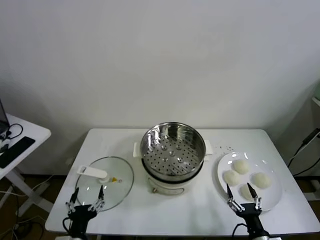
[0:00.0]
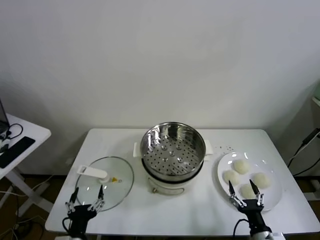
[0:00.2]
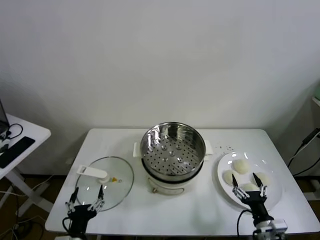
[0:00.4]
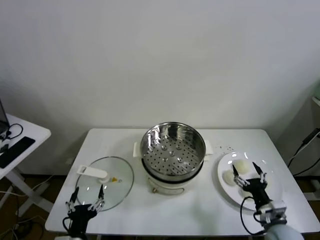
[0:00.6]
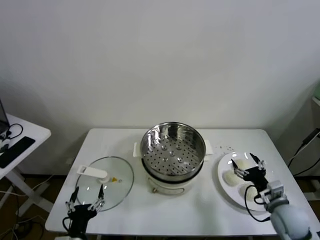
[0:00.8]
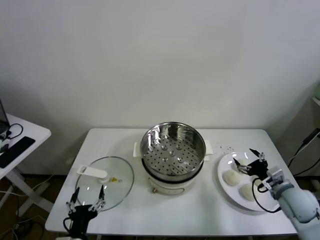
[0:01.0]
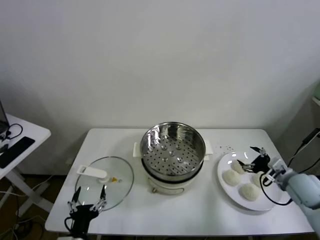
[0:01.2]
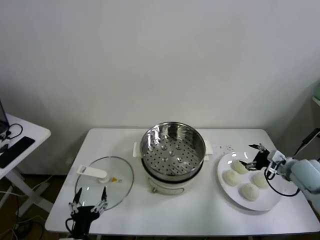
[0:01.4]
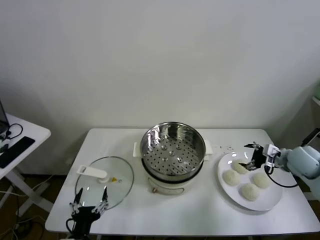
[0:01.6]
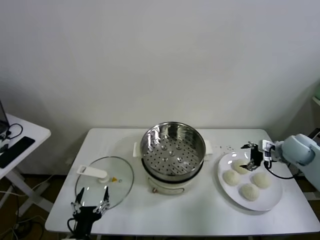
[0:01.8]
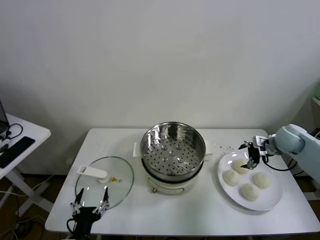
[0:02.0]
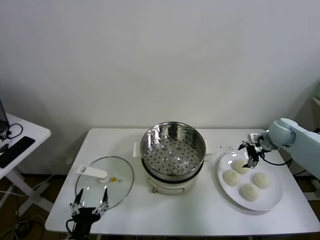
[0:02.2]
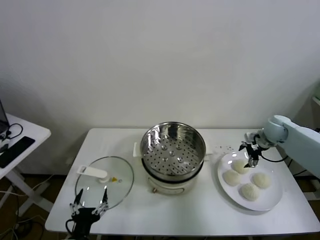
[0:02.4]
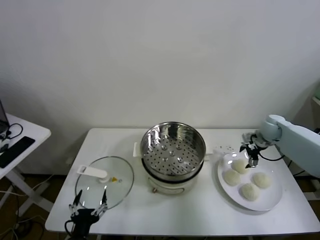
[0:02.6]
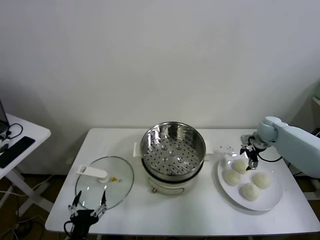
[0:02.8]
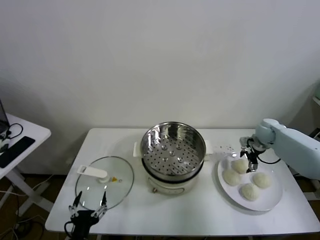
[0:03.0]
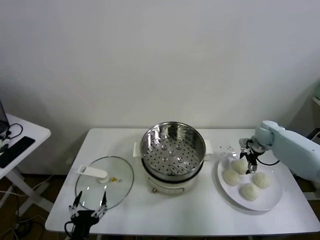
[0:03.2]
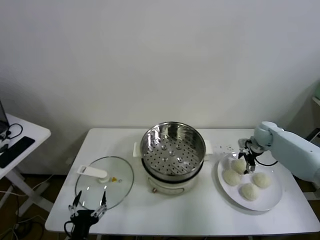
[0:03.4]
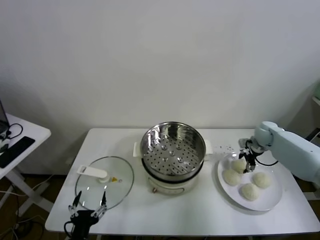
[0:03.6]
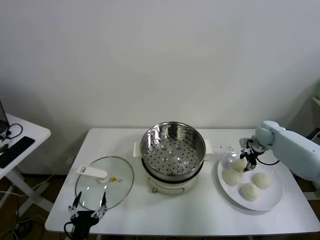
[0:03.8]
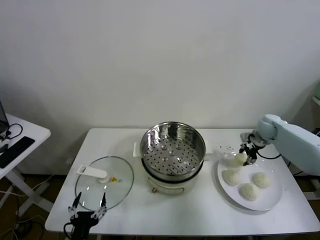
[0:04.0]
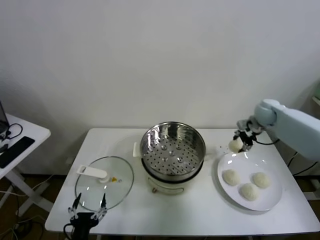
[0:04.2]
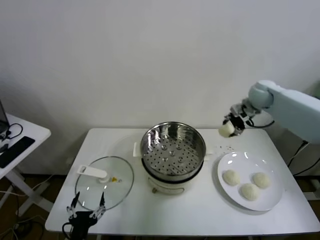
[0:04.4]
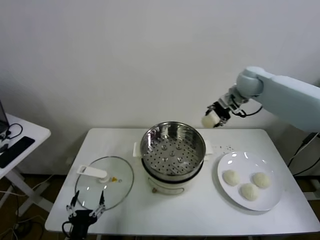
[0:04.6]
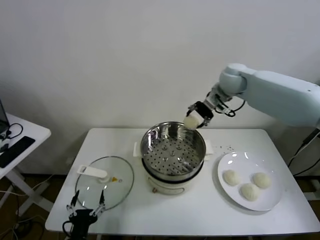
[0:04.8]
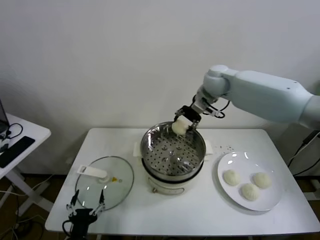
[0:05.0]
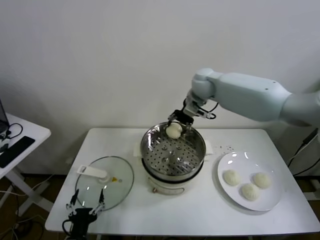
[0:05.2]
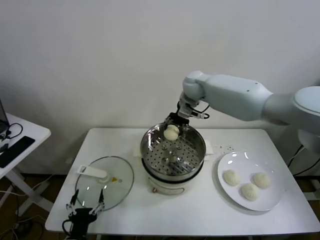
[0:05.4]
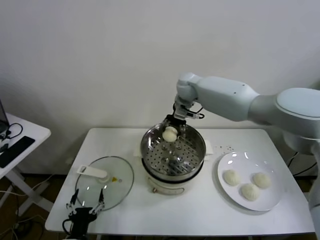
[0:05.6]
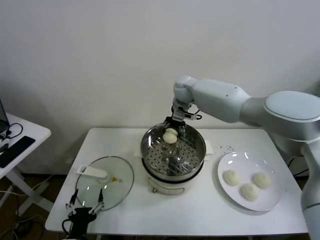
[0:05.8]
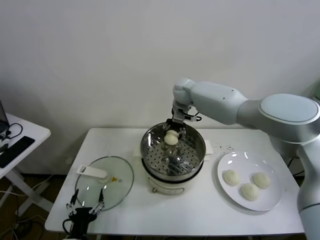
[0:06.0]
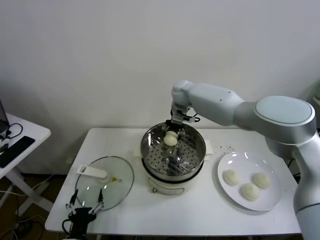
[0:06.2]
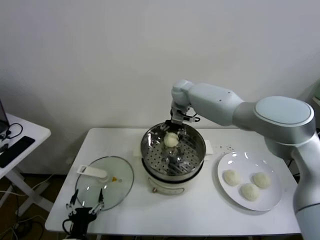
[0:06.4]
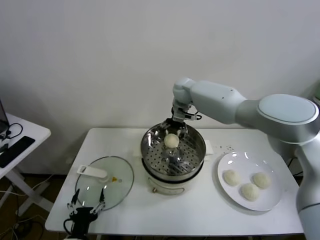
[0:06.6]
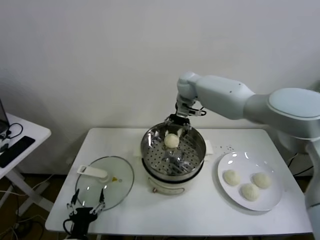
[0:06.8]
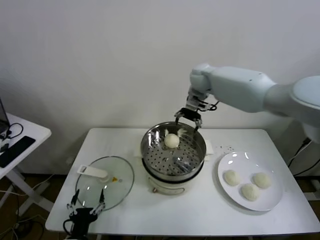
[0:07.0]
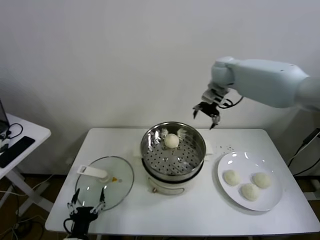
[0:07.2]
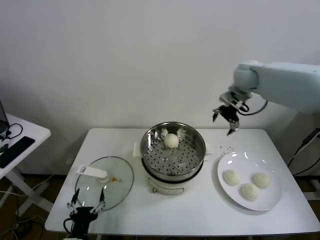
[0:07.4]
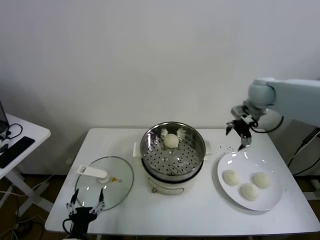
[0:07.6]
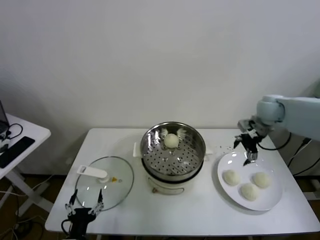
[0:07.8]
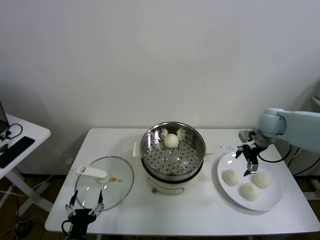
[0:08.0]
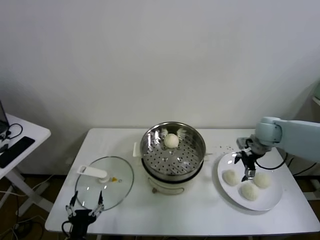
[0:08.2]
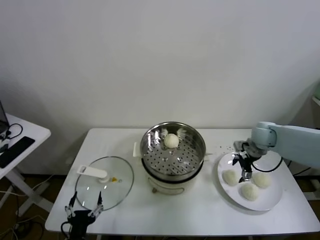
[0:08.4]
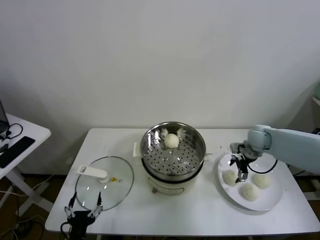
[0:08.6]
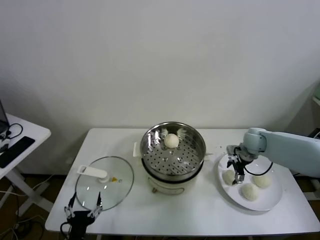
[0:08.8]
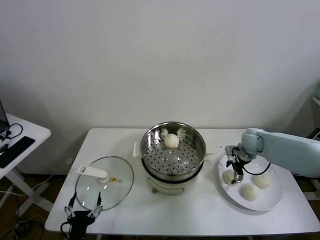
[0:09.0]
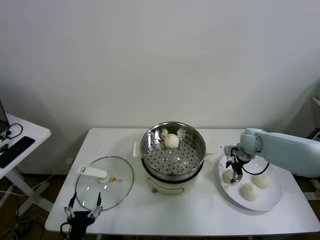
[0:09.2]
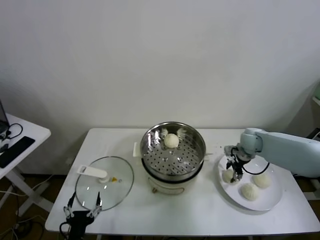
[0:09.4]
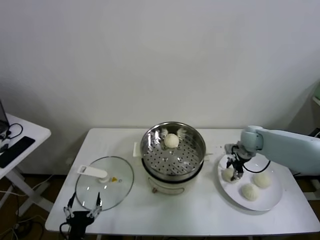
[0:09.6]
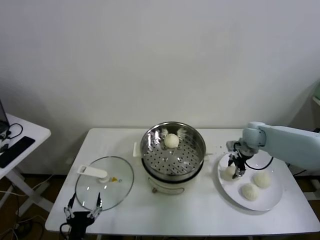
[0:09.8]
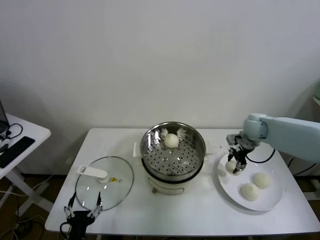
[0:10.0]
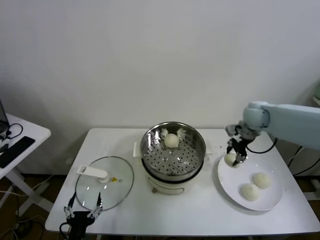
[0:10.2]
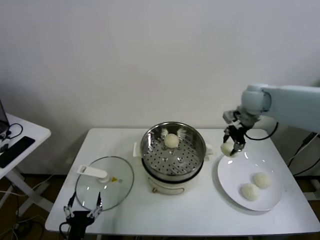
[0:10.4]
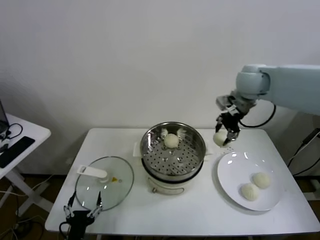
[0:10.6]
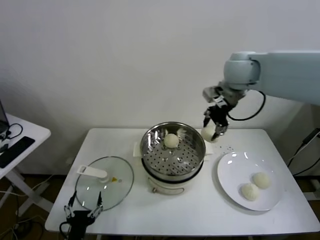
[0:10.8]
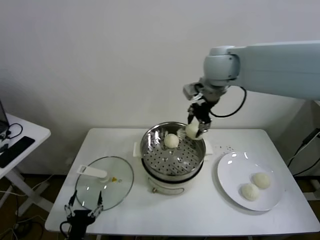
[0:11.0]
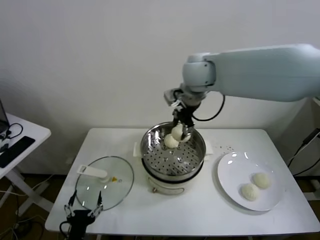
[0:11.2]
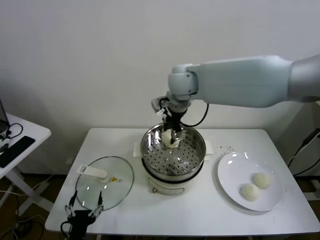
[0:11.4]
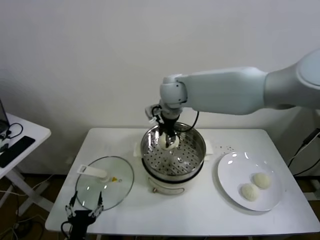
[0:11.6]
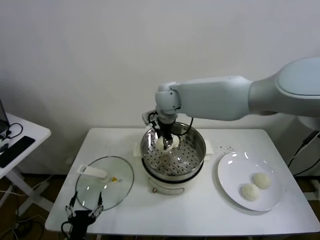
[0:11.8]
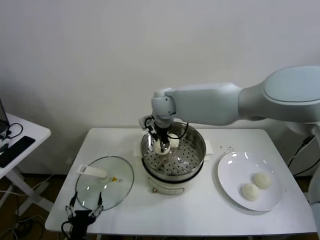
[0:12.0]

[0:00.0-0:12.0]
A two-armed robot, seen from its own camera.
Task of the whole recording: take steamed baozi put them in steamer.
Step, 0:00.0 to 0:03.4: Grasp the baozi in the plate with right gripper.
Step, 0:03.8 to 0:06.4: Place the baozi on the steamer with right gripper.
Step, 0:06.6 to 0:09.4: Grasp the baozi in the plate with right gripper.
0:01.6 to 0:03.0: The right gripper shifts about 15 cm forward.
0:03.0 to 0:04.4: The right gripper is displaced upward and to the left by roughly 20 cm, and closes up.
0:04.4 to 0:06.0: The right gripper travels to the left by about 25 cm.
0:06.0 to 0:07.6: The right gripper travels to the right by roughly 25 cm, and opens.
0:07.6 to 0:09.0: The right gripper heads downward, covering roughly 20 cm.
0:09.0 to 0:10.4: The right gripper is displaced upward by some 20 cm, and closes.
0:10.4 to 0:12.0: The right gripper travels to the left by some 30 cm.

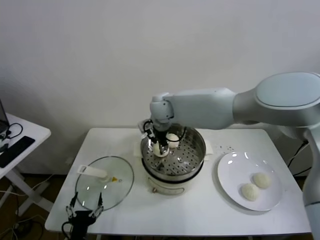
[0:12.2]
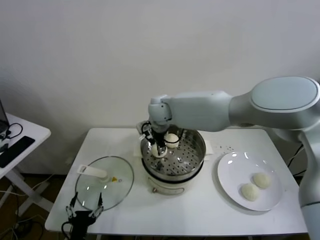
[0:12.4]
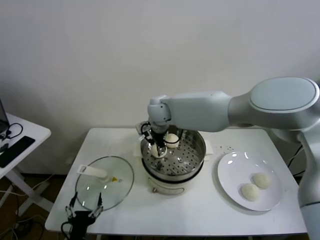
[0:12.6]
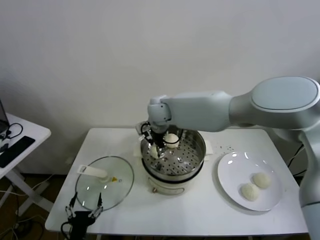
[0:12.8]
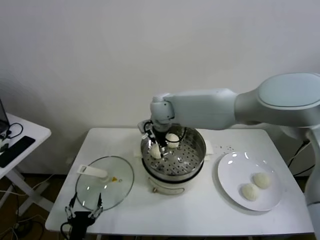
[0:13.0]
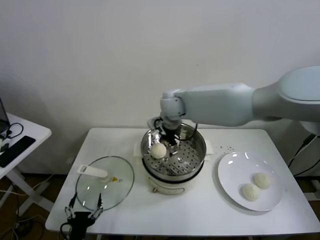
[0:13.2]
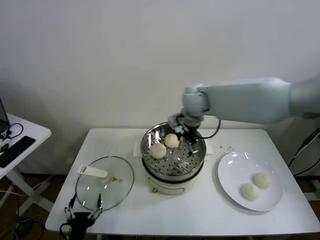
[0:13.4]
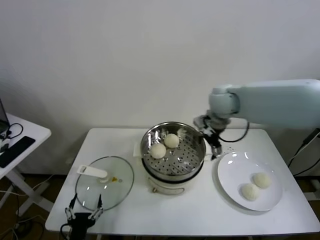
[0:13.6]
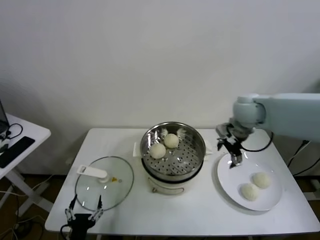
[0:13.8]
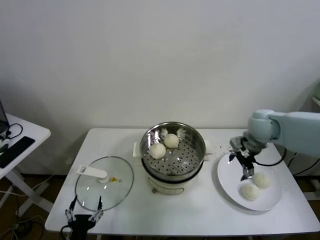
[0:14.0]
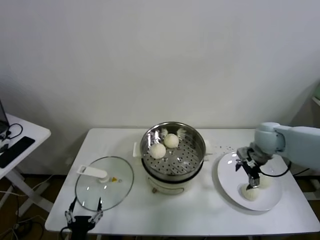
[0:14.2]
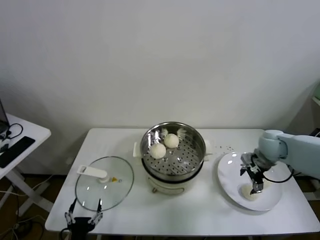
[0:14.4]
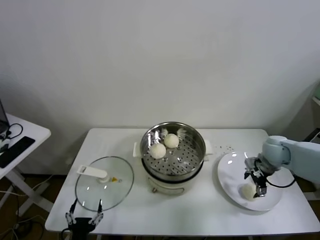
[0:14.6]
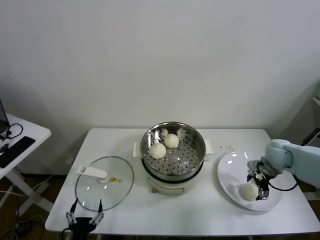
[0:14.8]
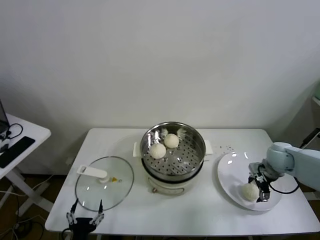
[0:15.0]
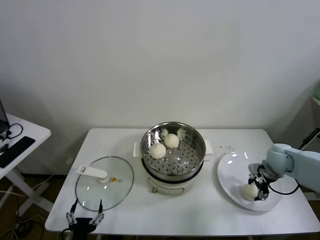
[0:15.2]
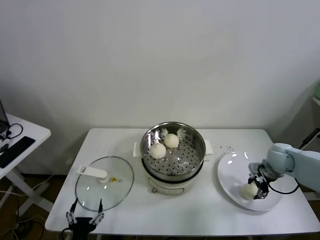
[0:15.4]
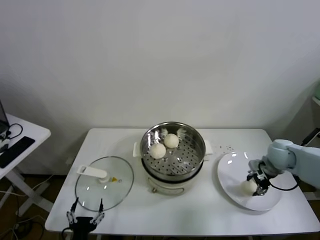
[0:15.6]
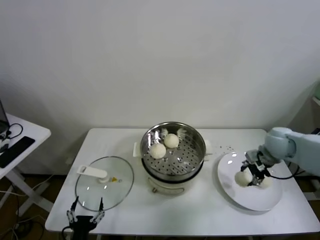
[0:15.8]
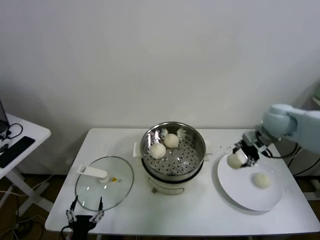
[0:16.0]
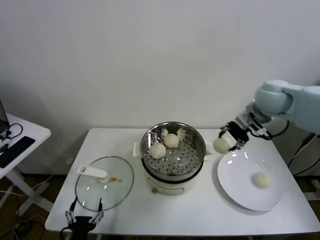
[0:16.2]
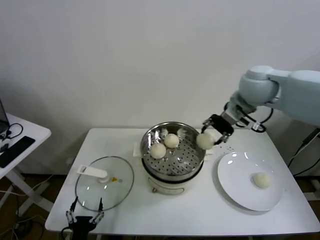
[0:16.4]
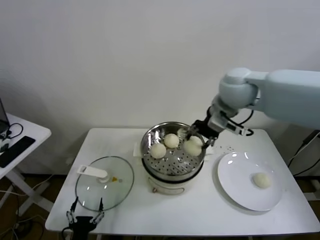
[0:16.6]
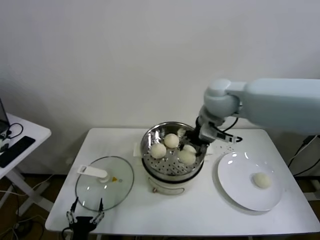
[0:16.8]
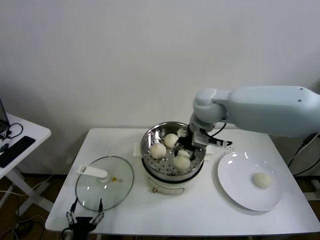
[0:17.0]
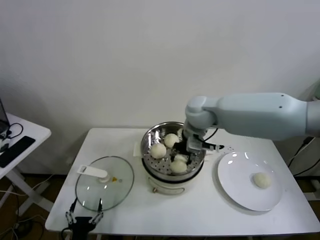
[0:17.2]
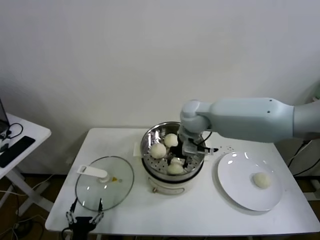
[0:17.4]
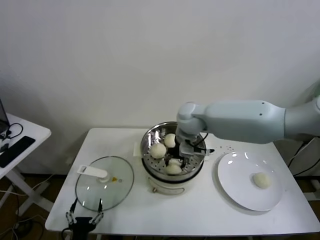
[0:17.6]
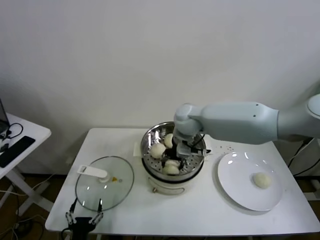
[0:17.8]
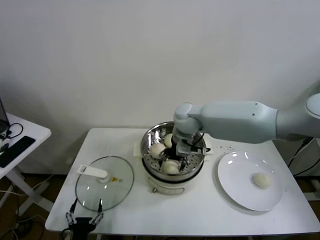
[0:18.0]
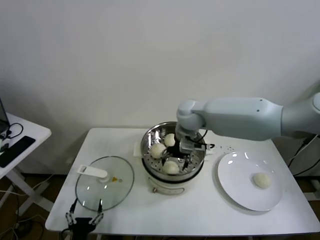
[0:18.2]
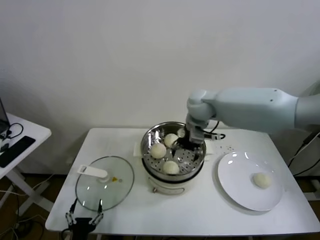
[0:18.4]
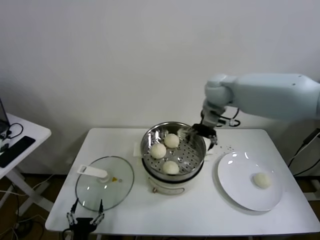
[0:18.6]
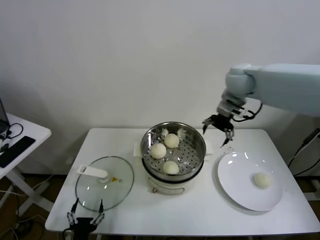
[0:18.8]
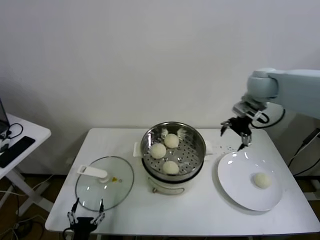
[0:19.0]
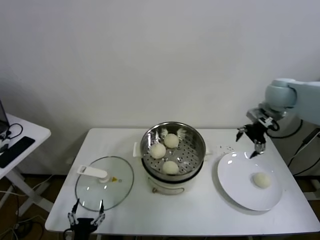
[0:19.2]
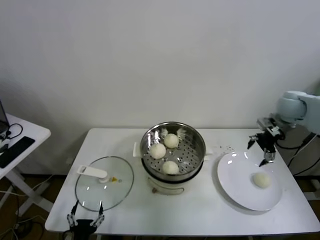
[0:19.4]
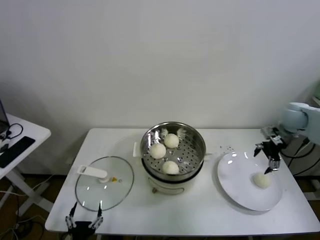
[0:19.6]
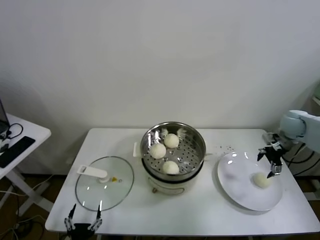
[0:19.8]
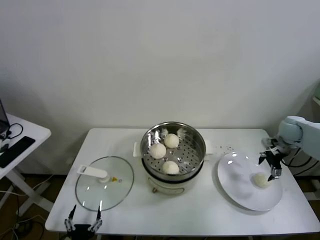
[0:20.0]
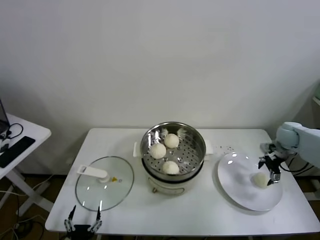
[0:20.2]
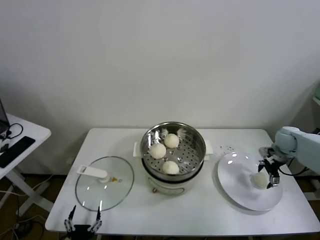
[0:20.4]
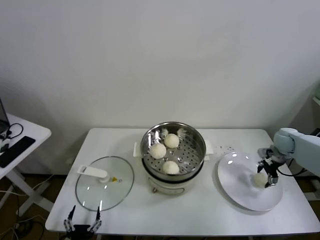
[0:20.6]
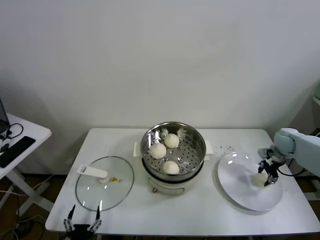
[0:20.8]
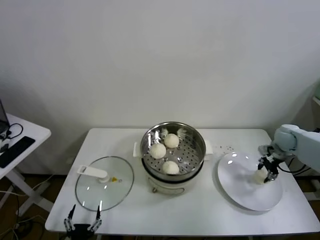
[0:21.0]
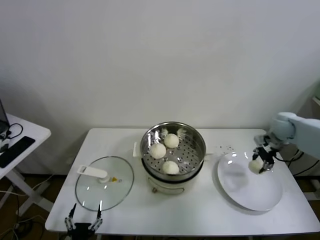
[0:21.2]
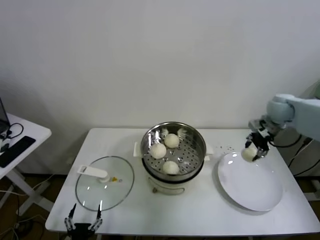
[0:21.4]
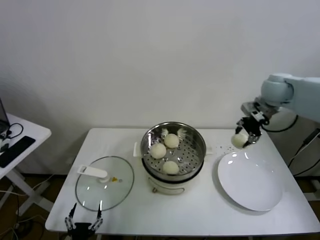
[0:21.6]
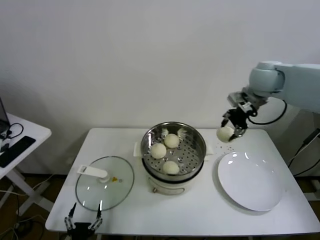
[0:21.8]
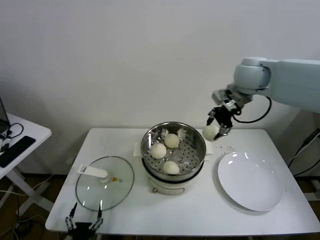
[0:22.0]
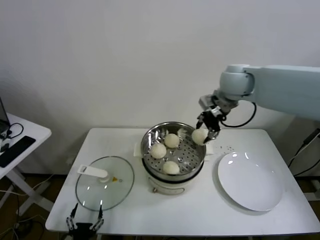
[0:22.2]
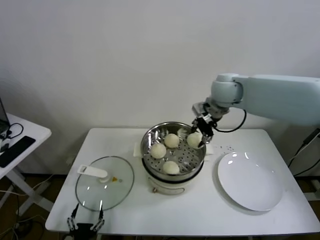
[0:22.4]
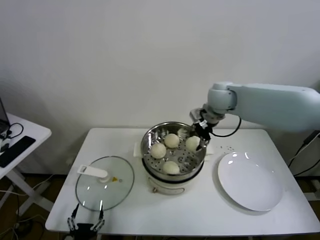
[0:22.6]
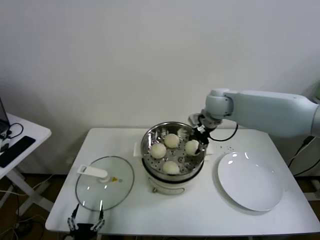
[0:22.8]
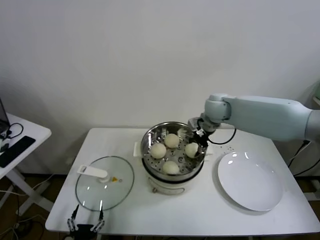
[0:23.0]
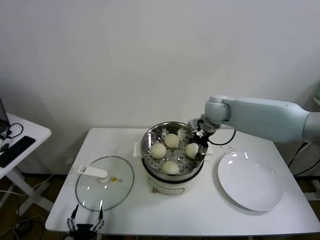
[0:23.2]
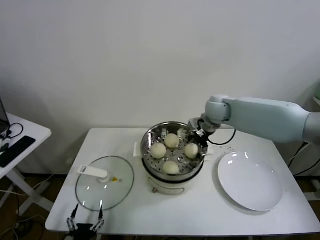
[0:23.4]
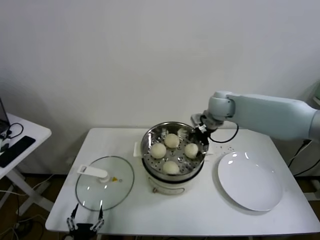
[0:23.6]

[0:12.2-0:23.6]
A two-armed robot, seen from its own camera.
Task of the whole recording: take steamed baozi put them in steamer.
Step, 0:13.0 to 0:15.2: Grasp the baozi in the plate with right gripper.
Step, 0:15.4 to 0:17.8: Place the baozi on the steamer with right gripper.
Step, 0:18.2 to 0:20.6: Grasp the baozi in the plate with right gripper.
Step, 0:20.8 to 0:23.2: Place the baozi on the steamer with right gripper.
0:12.2 to 0:13.6: The right gripper travels to the right by approximately 20 cm, and opens.
0:13.6 to 0:15.0: The right gripper shifts roughly 30 cm to the right and downward.
0:15.0 to 0:16.4: The right gripper is displaced upward and to the left by roughly 30 cm, and closes up.
0:16.4 to 0:17.8: The right gripper goes about 20 cm to the left and downward.
0:17.8 to 0:19.4: The right gripper travels to the right by approximately 35 cm, and opens.
0:19.4 to 0:20.8: The right gripper heads downward, covering some 15 cm, and closes.
0:20.8 to 0:22.2: The right gripper heads to the left and upward, covering about 40 cm.
0:22.2 to 0:23.6: The right gripper shifts some 10 cm downward, and opens its fingers.
